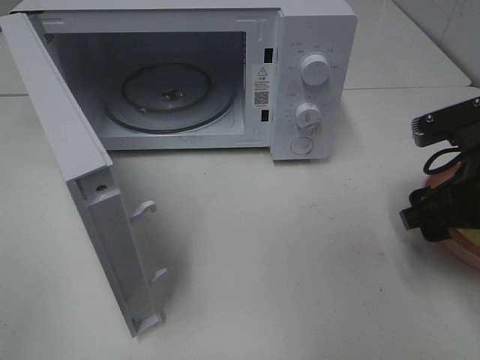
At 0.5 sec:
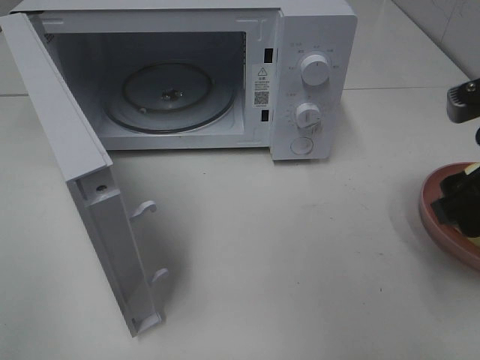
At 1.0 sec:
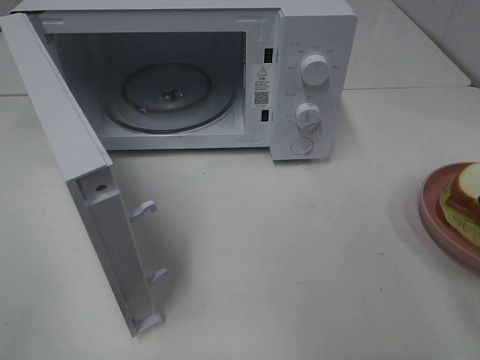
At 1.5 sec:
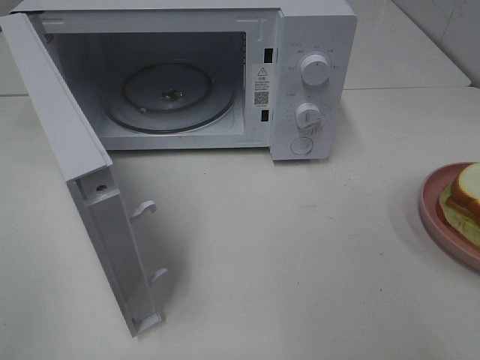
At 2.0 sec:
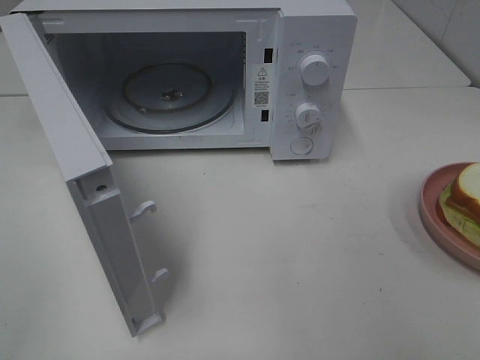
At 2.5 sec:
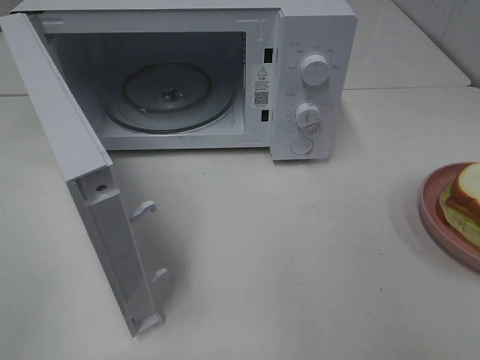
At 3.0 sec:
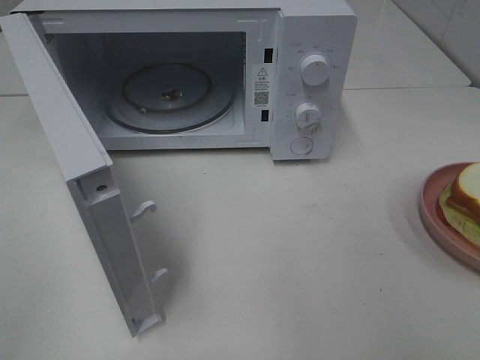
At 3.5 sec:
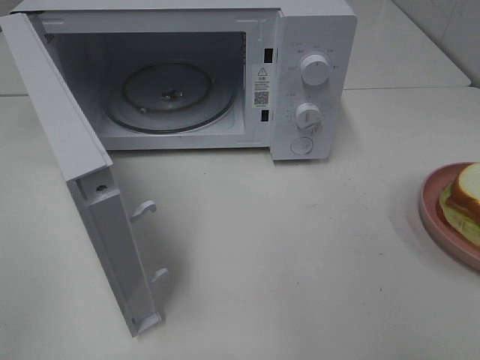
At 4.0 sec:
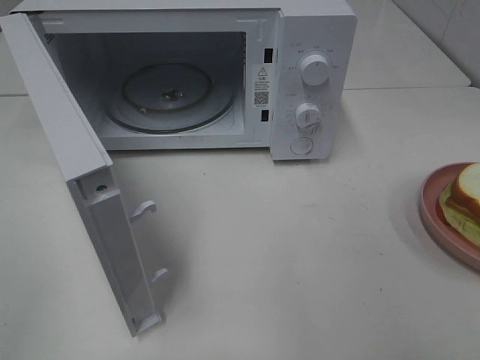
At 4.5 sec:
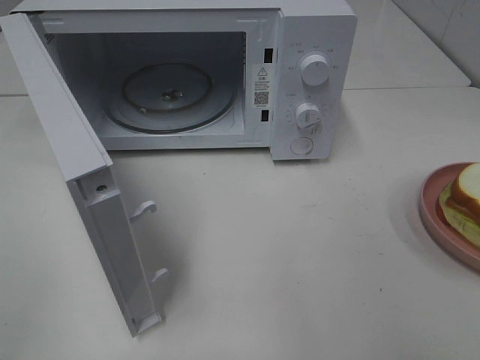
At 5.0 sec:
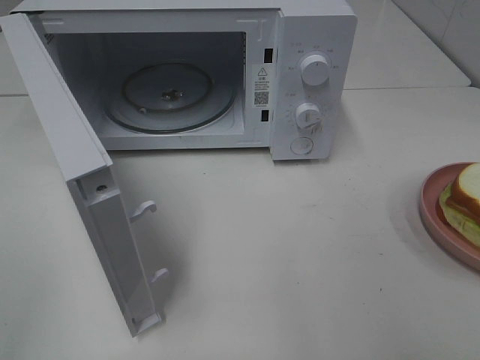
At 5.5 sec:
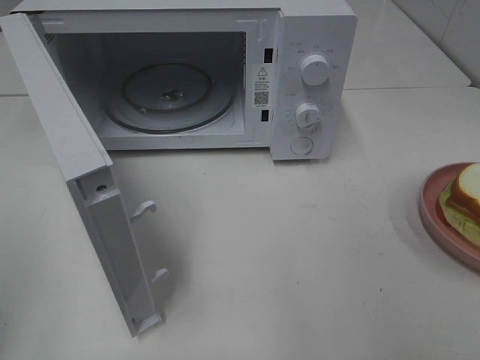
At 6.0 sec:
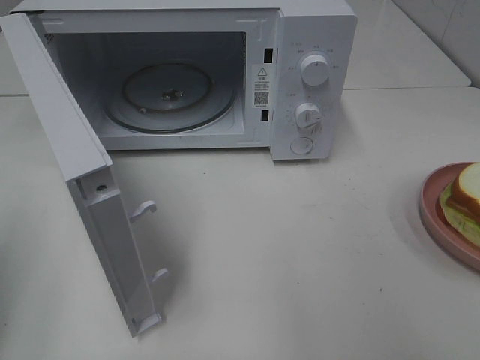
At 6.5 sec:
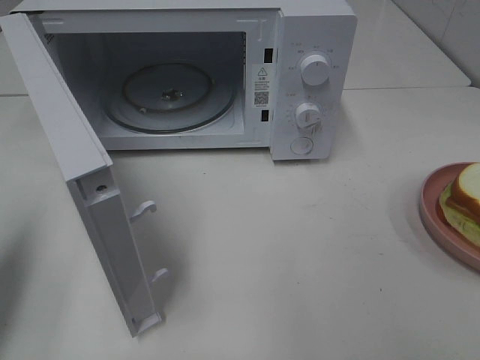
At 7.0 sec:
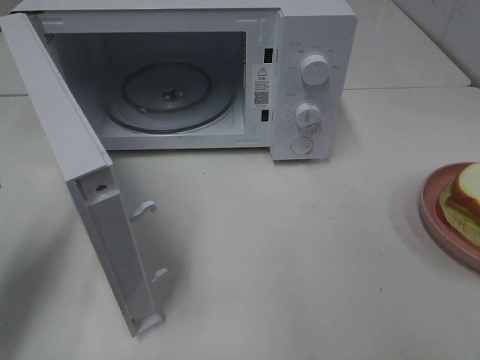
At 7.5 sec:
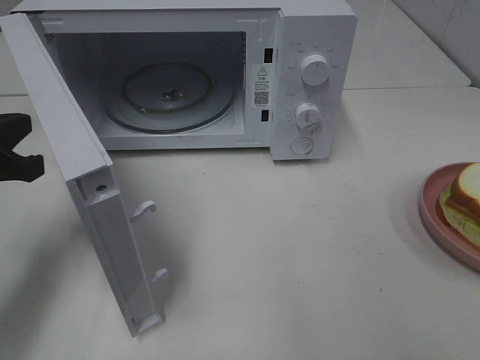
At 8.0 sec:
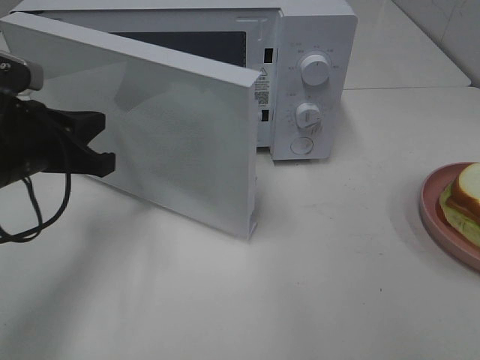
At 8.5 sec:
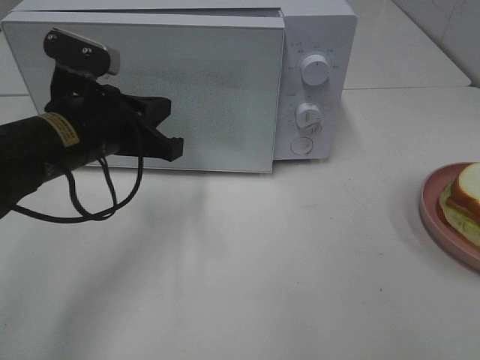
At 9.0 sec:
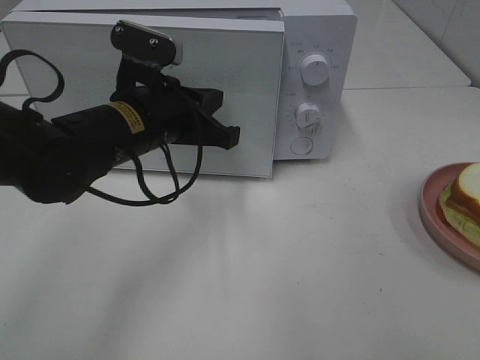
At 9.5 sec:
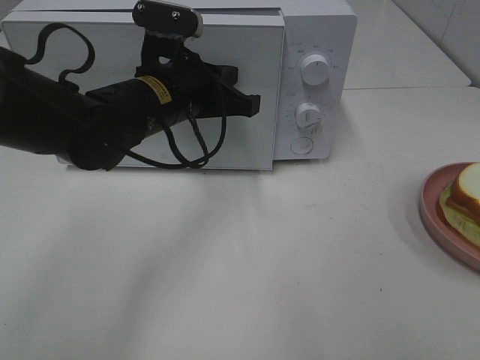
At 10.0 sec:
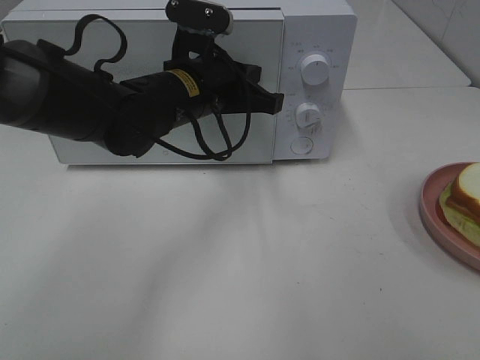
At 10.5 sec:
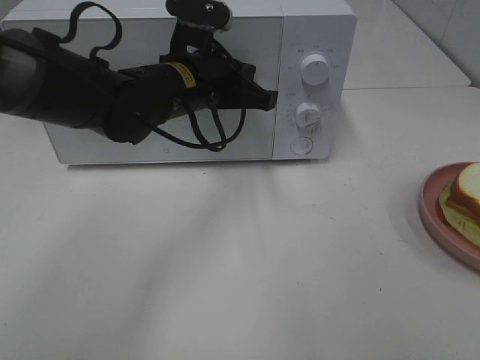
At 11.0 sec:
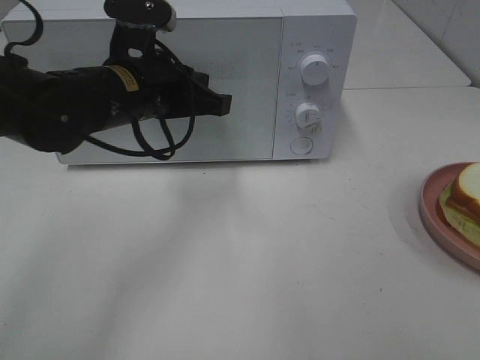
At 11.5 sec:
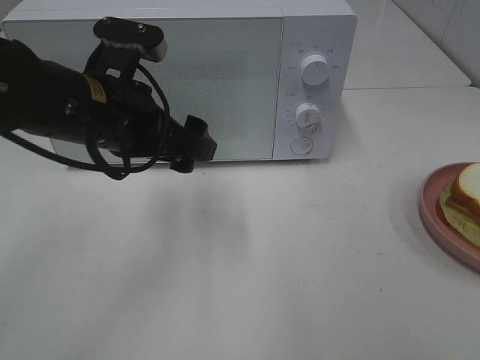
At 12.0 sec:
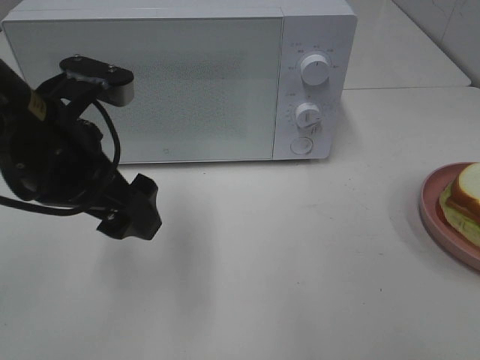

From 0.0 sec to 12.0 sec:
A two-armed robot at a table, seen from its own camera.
Task of the whole recording: Heat Sandwich.
Step, from 1.0 sec to 11.0 sec: Left hand: close the microwave door.
From 0.0 sec to 2.0 sec: The right gripper goes some 20 cm backward and upward.
From 6.0 sec to 8.0 sec: The left gripper shifts approximately 20 cm forward, to the right and downward.
From 8.0 sec to 10.0 sec: The left gripper travels to the right and forward by about 20 cm.
From 10.0 sec to 12.0 sec: The left gripper is displaced backward and to the left by roughly 15 cm, and opens up.

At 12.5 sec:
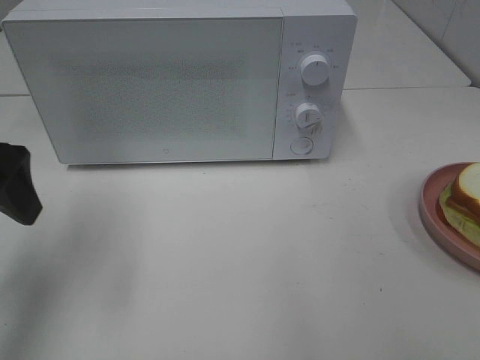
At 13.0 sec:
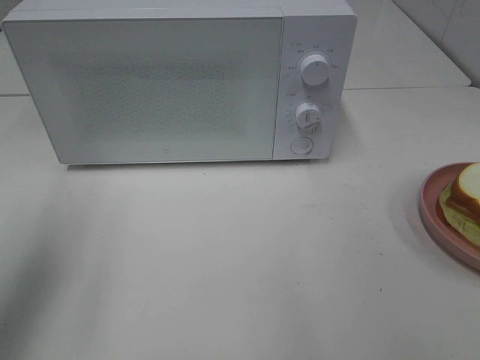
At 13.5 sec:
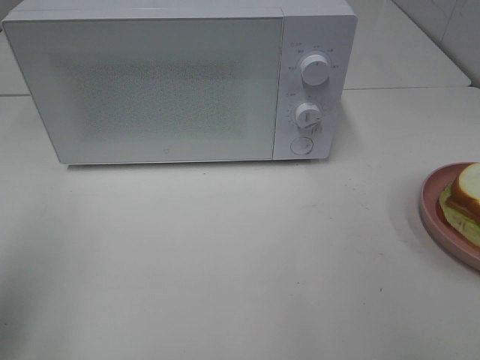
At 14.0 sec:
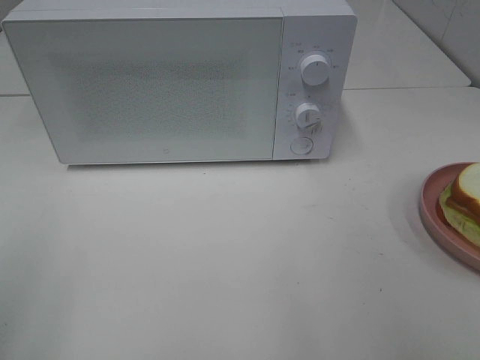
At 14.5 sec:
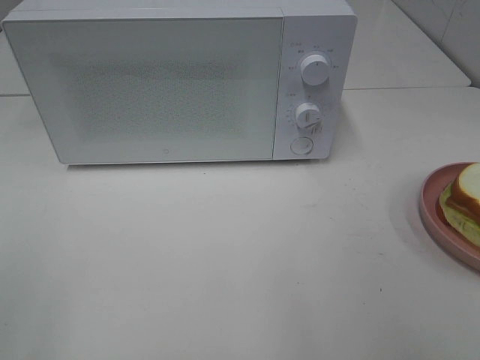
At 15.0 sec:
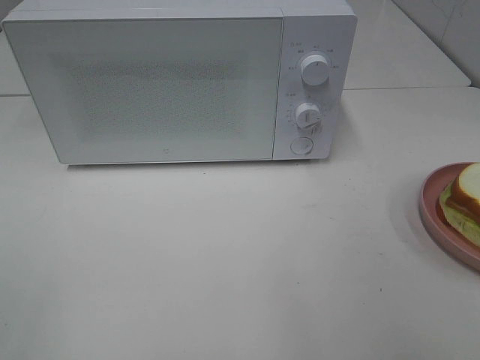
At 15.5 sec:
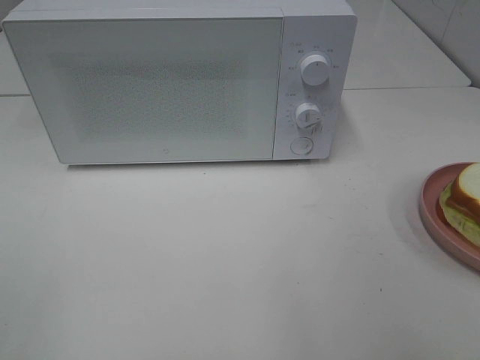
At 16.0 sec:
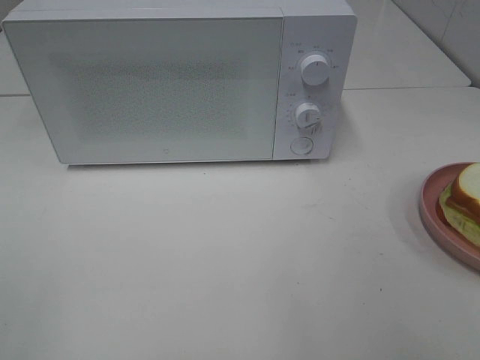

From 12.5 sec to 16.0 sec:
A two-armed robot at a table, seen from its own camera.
Task of the whole recording: Heat Sandwich.
From 12.5 sec to 14.5 sec: The left gripper goes some 20 cm backward.

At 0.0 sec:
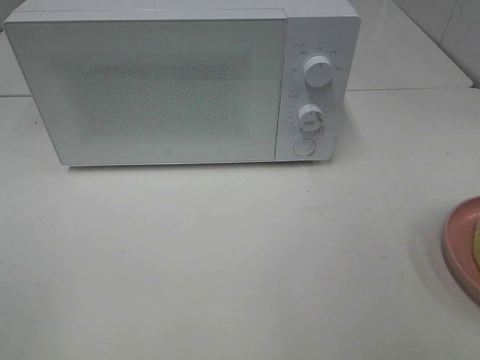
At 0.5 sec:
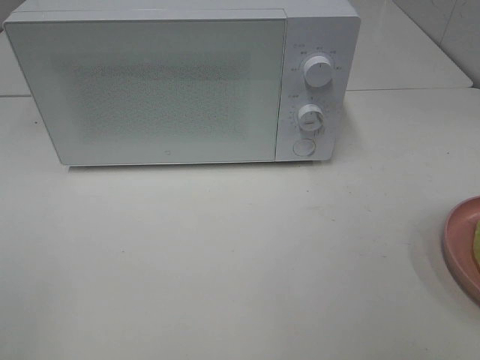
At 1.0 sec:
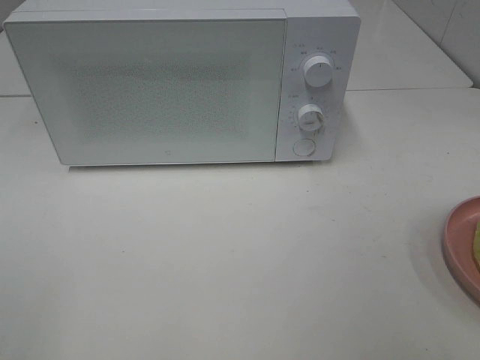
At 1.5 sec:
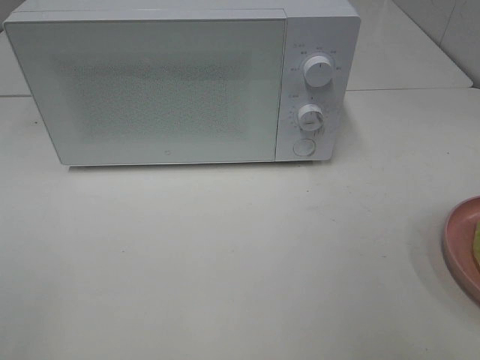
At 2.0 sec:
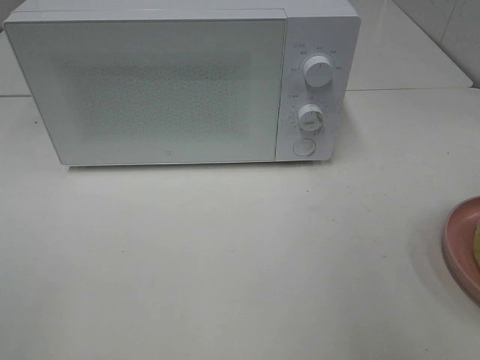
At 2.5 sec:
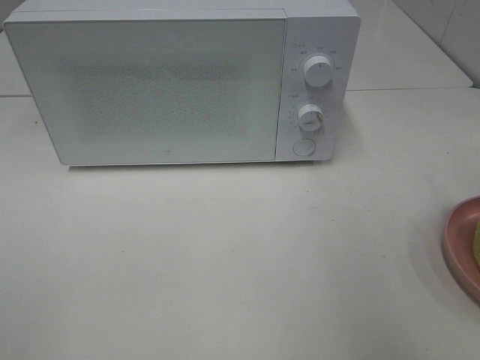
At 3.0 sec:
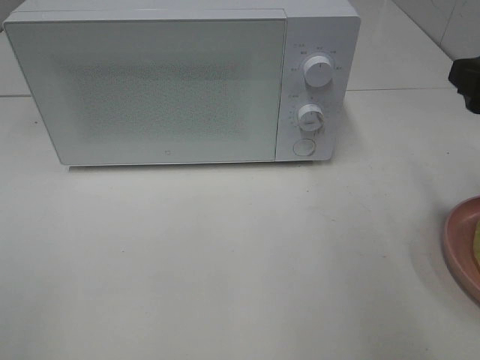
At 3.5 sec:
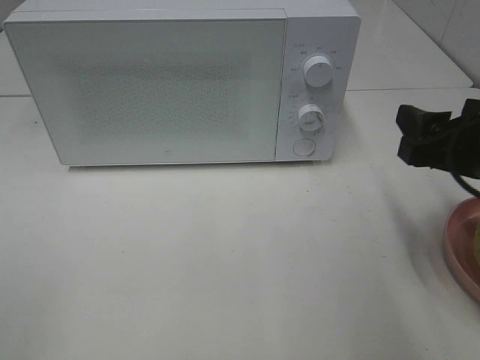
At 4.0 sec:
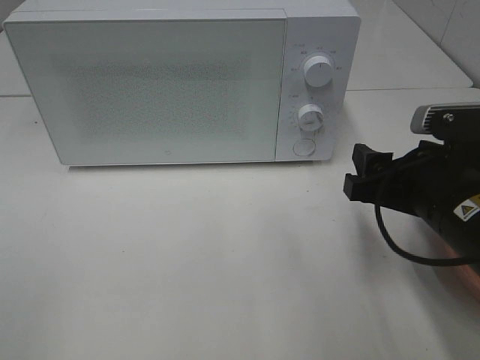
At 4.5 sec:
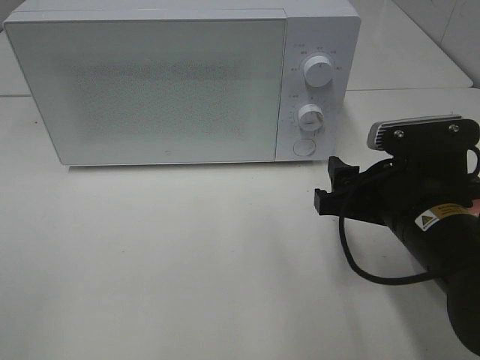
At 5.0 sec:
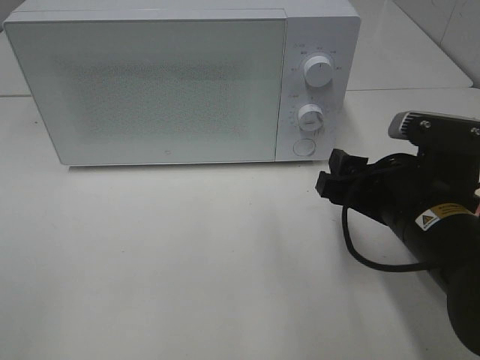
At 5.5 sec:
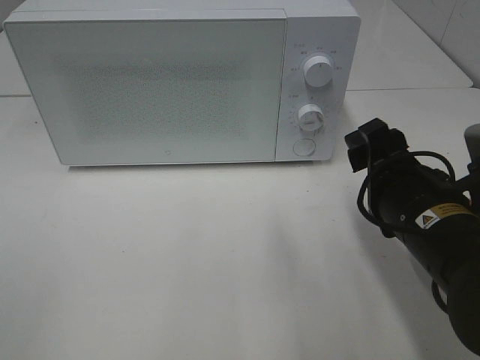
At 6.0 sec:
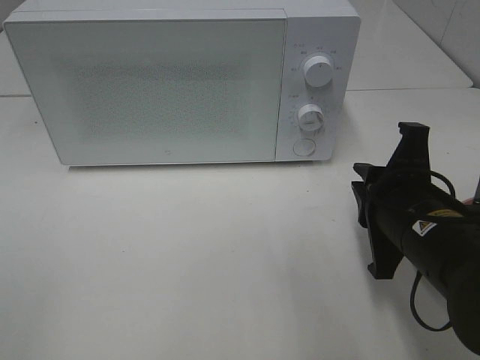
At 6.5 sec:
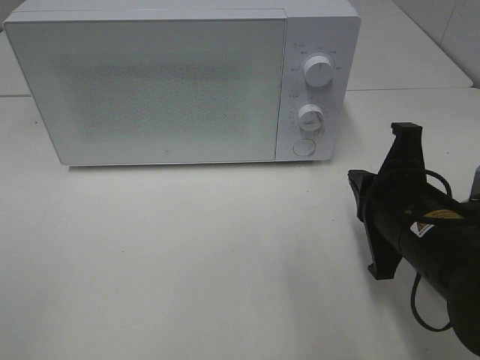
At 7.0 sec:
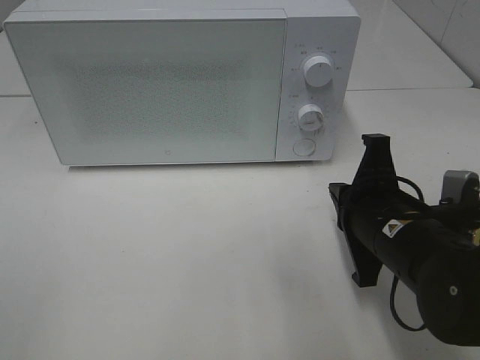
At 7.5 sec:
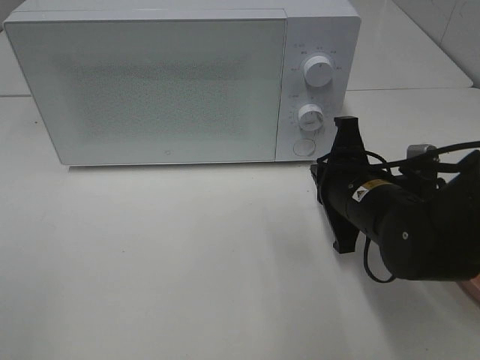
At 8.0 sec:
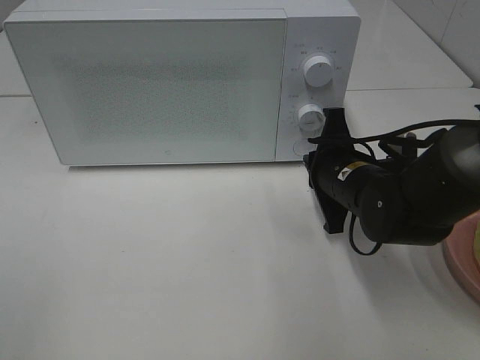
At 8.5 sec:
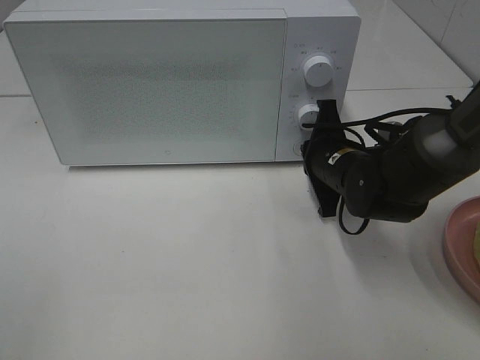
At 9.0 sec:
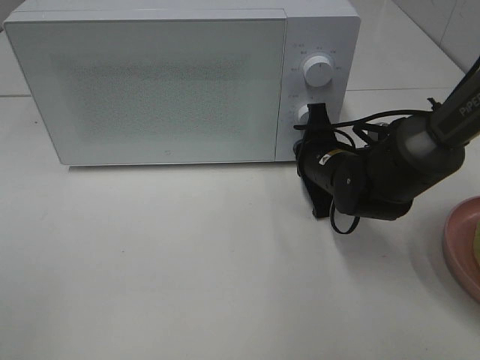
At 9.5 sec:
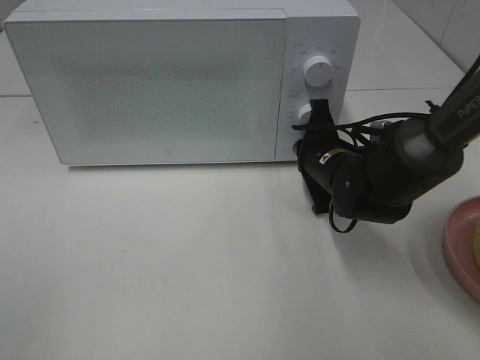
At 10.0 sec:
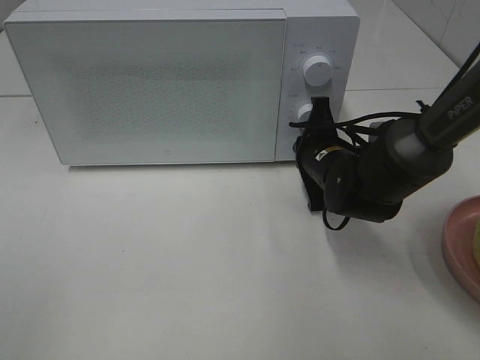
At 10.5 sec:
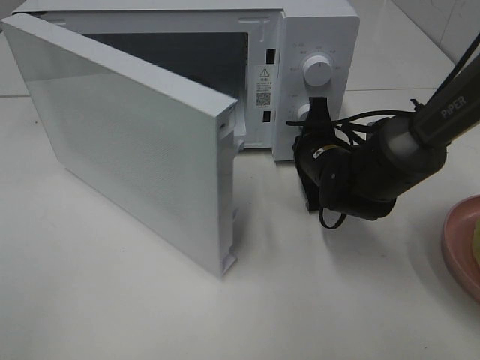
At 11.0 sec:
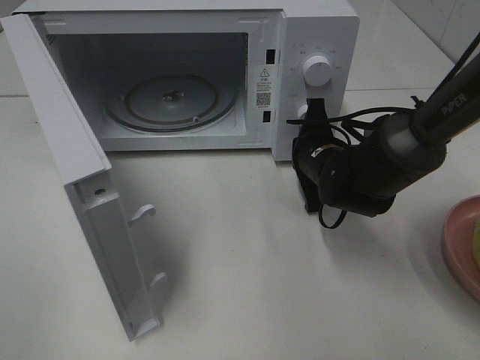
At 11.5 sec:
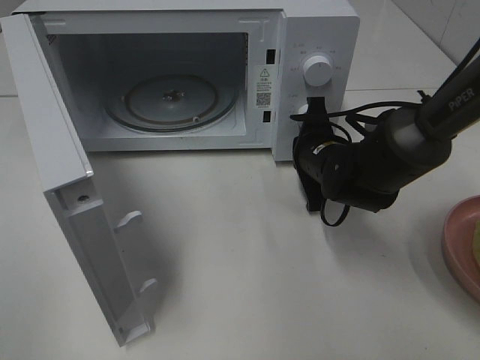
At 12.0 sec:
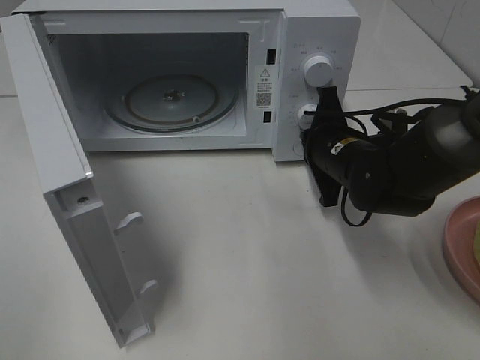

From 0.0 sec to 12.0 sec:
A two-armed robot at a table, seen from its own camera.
Task of the whole recording: Heat Sandwich.
From 2.0 sec to 4.0 sec: The right gripper moves downward, to the left and forward, approximately 20 cm.
From 4.0 sec to 6.0 sec: The right gripper closes.
From 6.0 sec to 8.0 sec: The right gripper heads forward, covering approximately 10 cm.
From 8.0 sec to 10.0 sec: The right gripper shifts approximately 5 cm forward.
